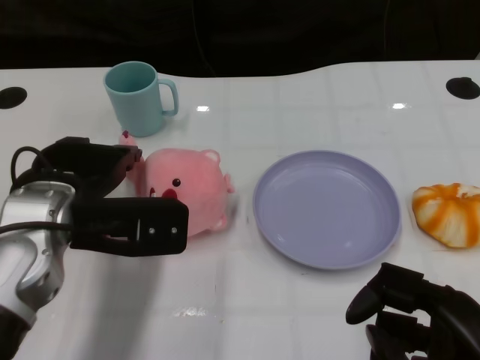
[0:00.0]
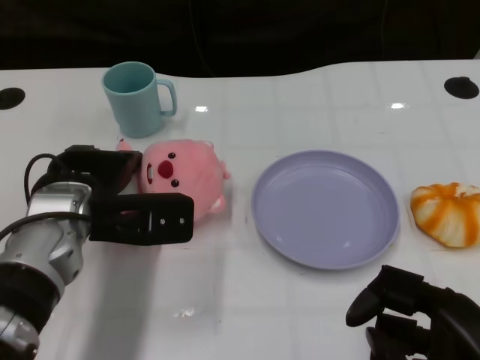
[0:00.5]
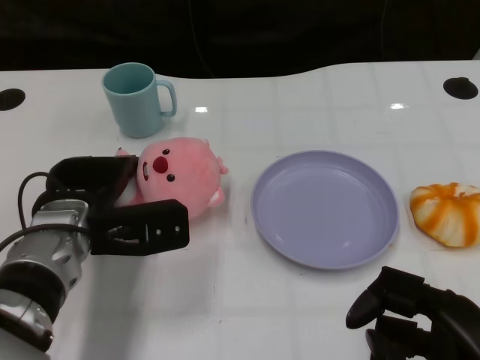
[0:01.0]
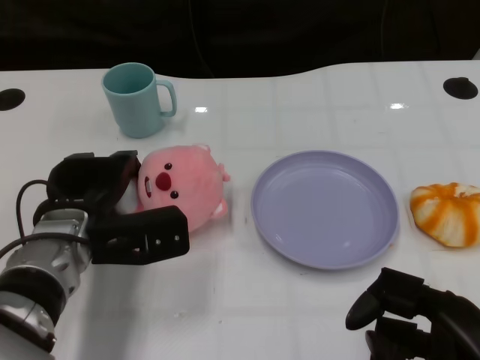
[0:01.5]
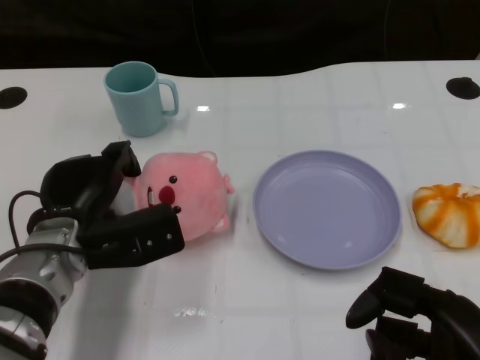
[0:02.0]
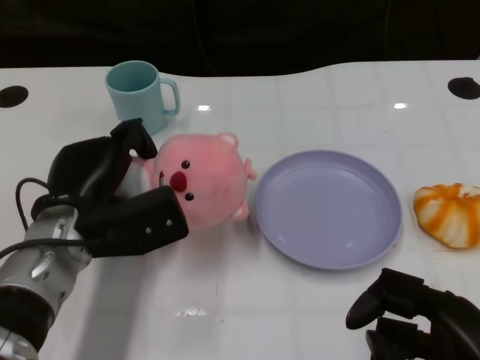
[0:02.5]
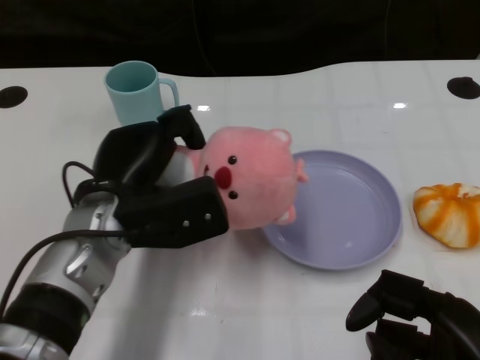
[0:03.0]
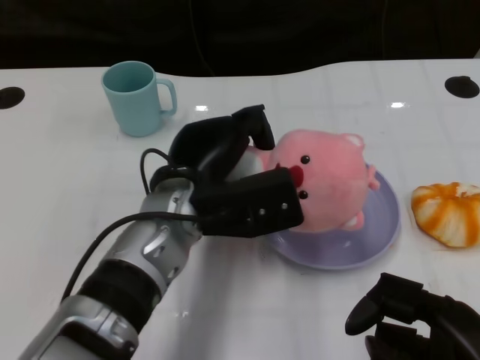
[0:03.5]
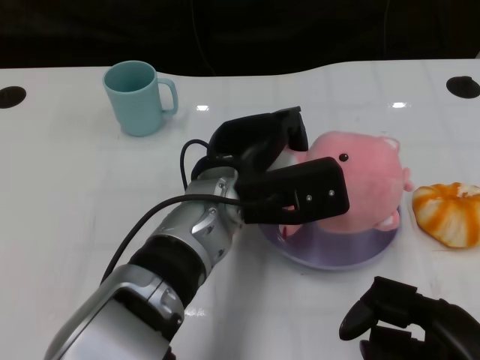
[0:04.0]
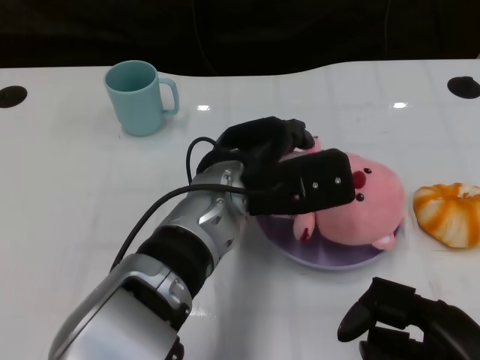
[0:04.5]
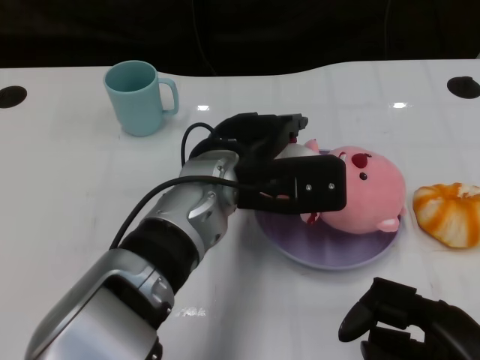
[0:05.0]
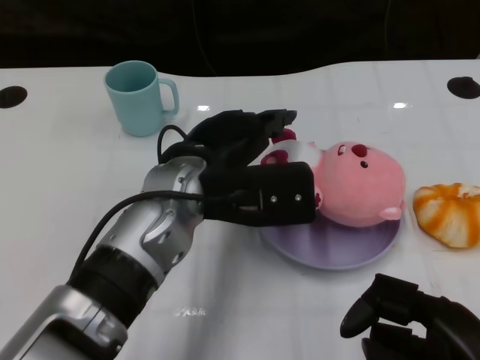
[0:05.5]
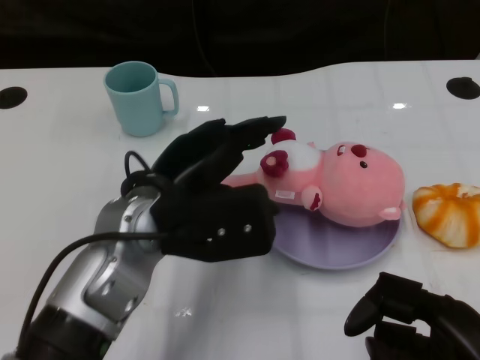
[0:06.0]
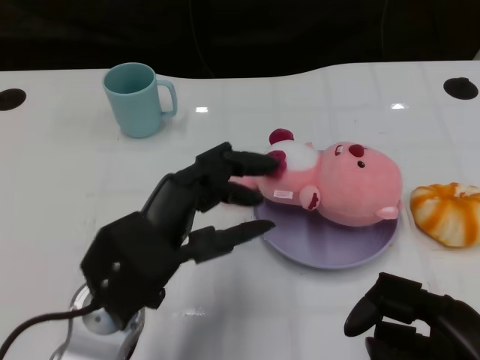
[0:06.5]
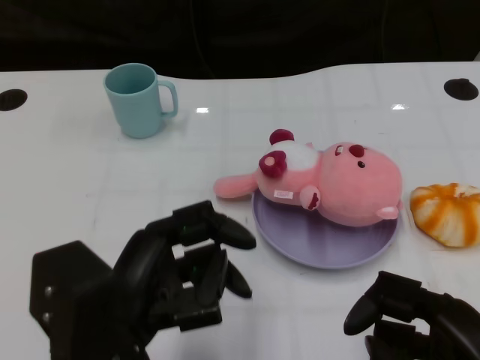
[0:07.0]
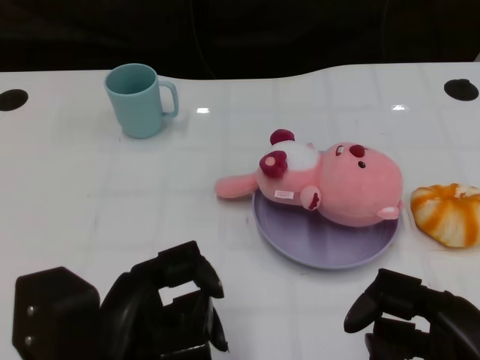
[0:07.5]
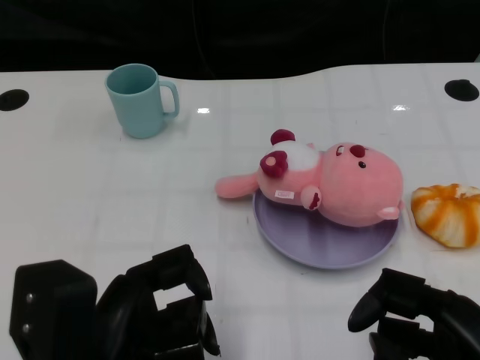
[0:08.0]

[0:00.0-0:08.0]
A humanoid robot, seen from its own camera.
Task of the whole recording: Pick up the doll on one side of the plate and place it into the plate.
Step, 0:02.0 to 0:05.0: Place the pink doll into the plate with the left gripper.
0:00.0 to 0:02.0: The left hand moves downward, roughly 10 cm.
0:02.0 to 0:04.0: The left hand shifts approximately 15 cm to the right.
0:04.0 to 0:06.0: The left hand goes roughly 10 cm to the left.
0:06.0 to 0:08.0: The left hand shifts some 15 cm backward and to the left.
